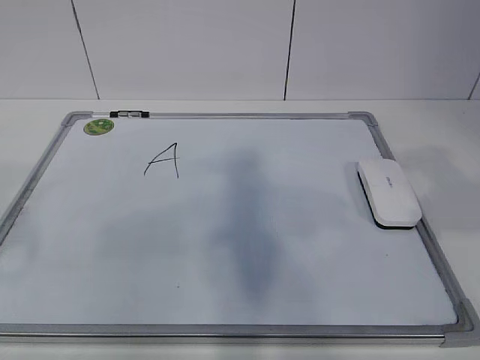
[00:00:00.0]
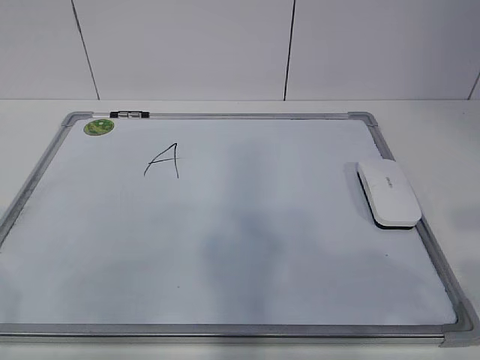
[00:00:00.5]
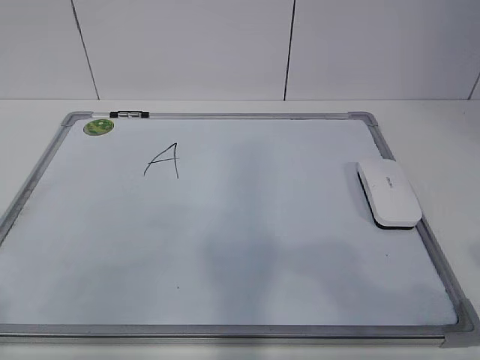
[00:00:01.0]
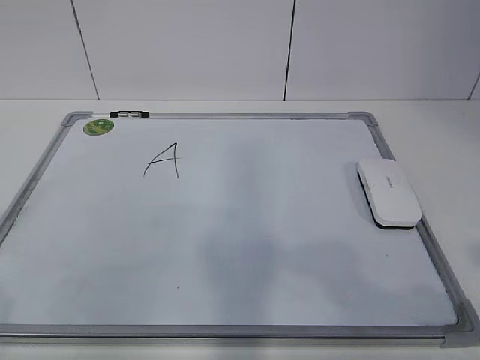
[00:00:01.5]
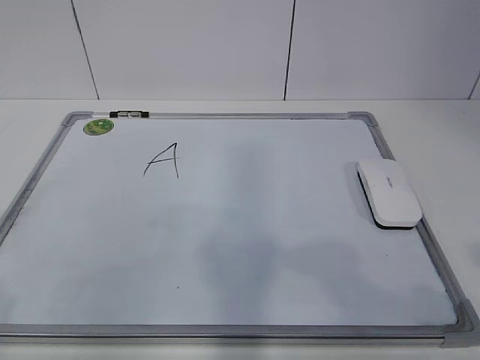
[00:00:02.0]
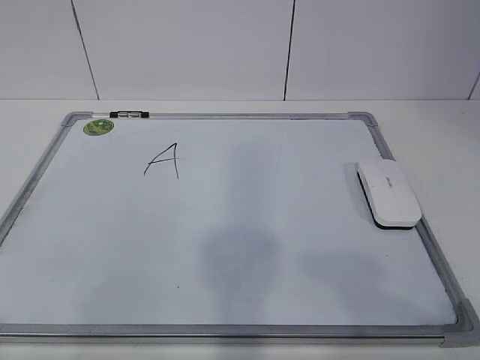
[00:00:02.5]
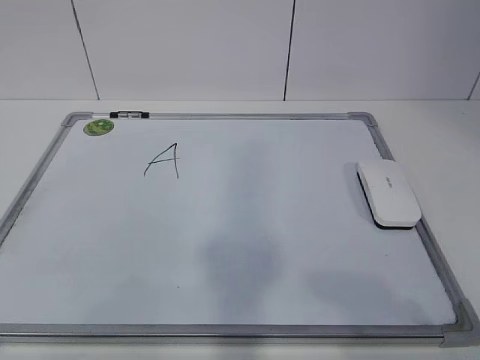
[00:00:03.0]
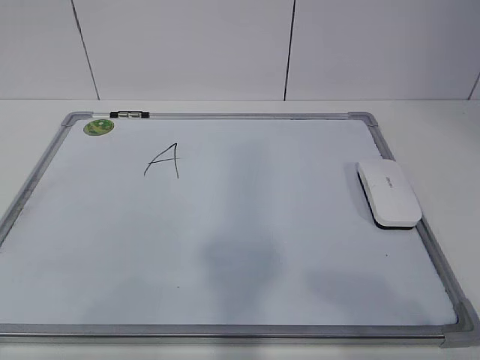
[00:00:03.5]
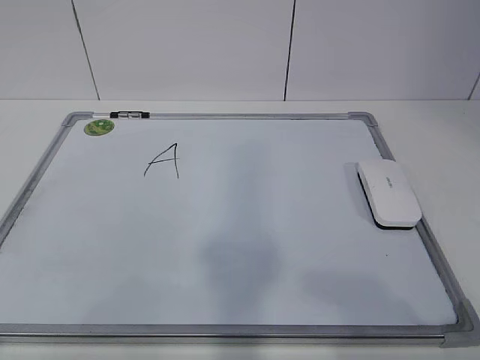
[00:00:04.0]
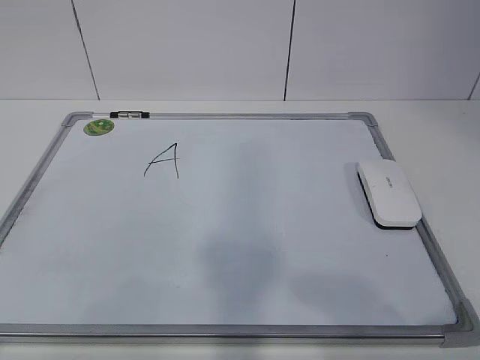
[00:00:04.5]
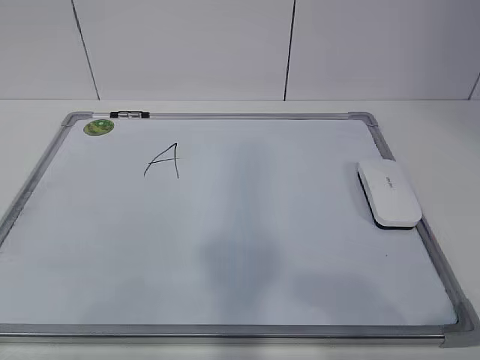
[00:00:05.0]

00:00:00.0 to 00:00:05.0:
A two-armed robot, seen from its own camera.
Task of the whole recording: pick up the eraser on the blackboard and erase the letter "a".
00:00:00.0 to 00:00:02.5: The left gripper moves backward, about 10 cm; the right gripper moves backward, downward and to the right, roughly 15 cm.
